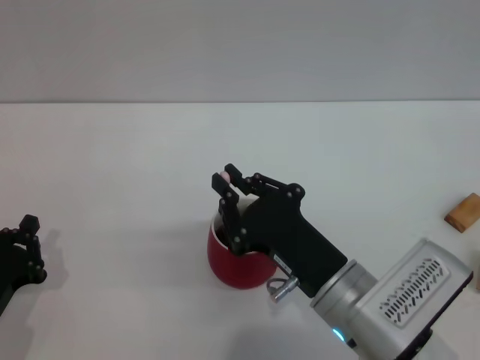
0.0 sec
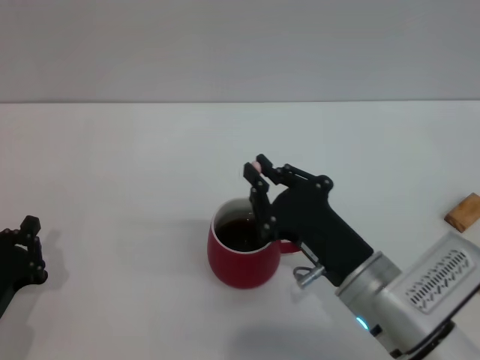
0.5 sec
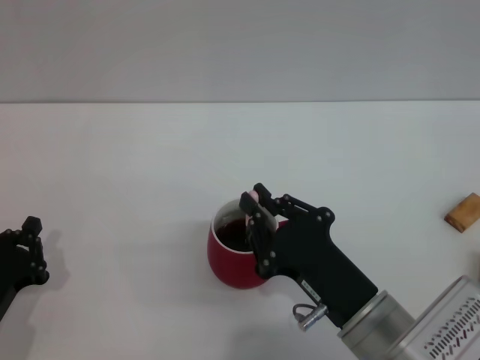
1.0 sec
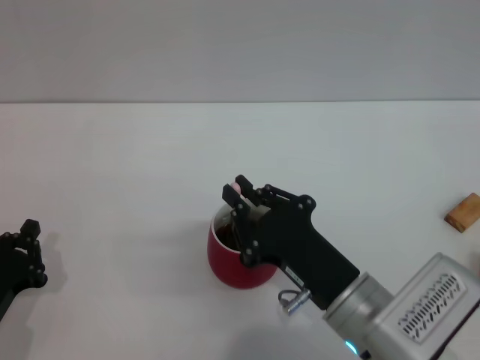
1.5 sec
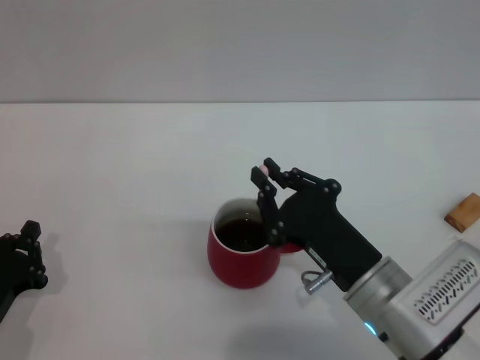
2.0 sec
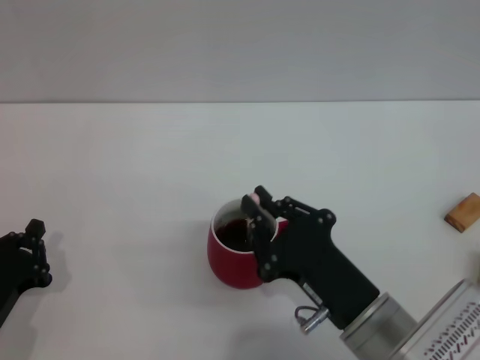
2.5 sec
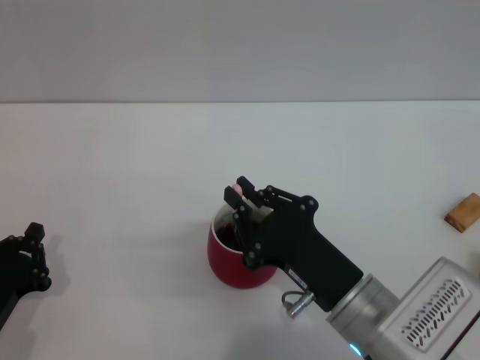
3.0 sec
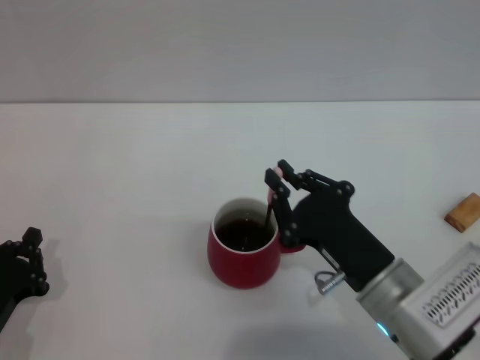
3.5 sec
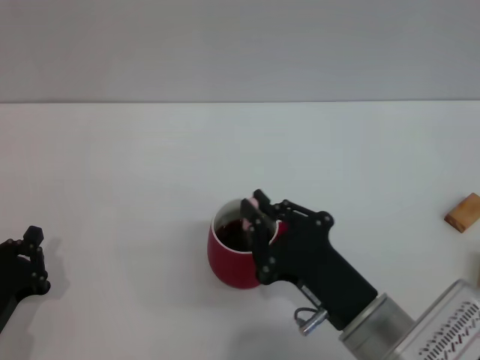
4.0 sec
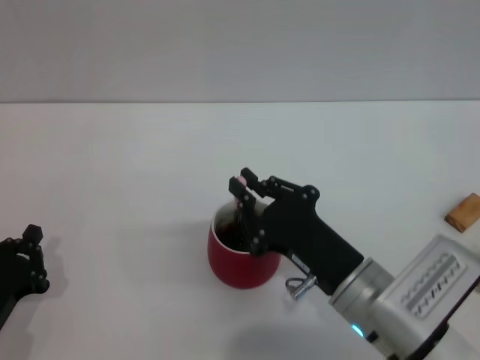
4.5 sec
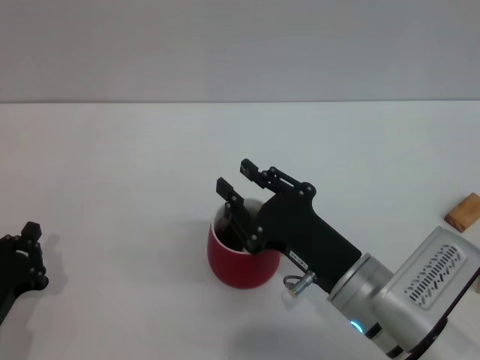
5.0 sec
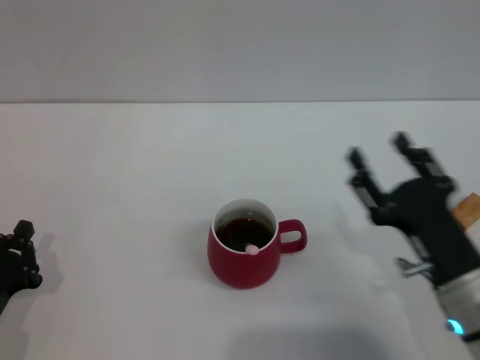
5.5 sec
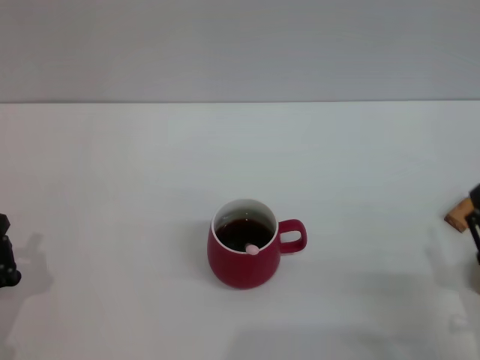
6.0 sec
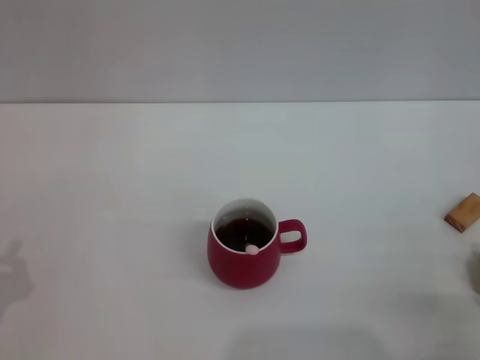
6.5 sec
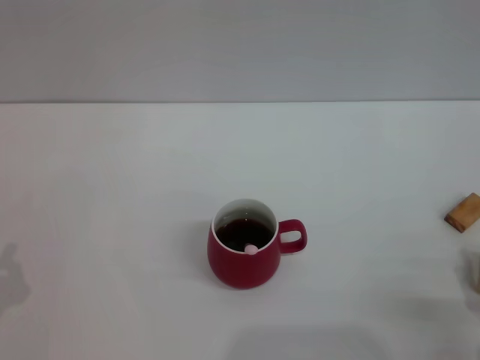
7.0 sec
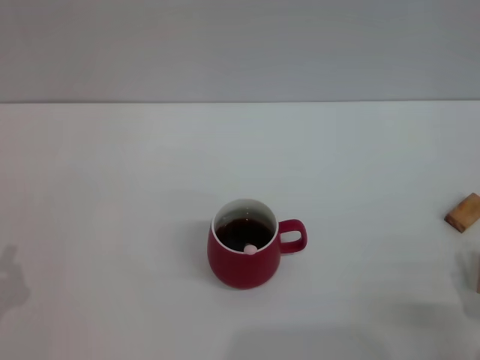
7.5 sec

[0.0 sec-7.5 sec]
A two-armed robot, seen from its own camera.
Task of the whole recording: Move the red cup to the center, lift the pink spoon, stir it three times in the cup, and put the spoon into the cup.
Step, 0.0 sec to 5.5 sec: Stir the coffee in the cup with the right gripper.
0.0 sec to 4.0 sec: The grippers move only a little.
4.0 sec to 5.5 sec: The right gripper is displaced to the right by about 5 cm, and opens up.
5.5 sec to 7.5 sec: The right gripper goes roughly 10 cm backward and to the right.
